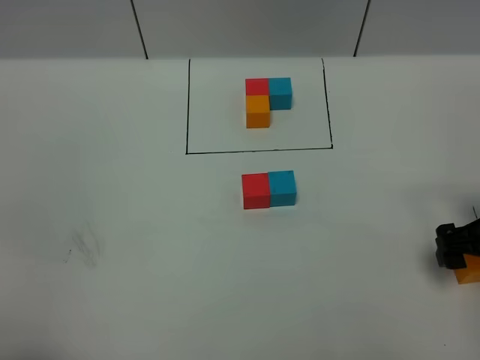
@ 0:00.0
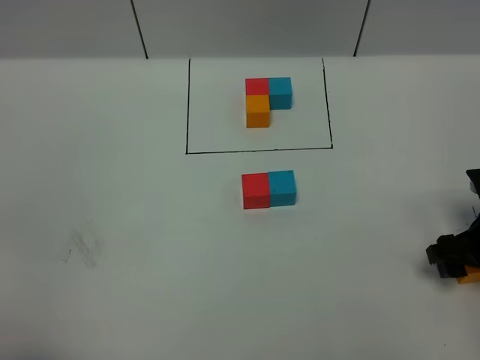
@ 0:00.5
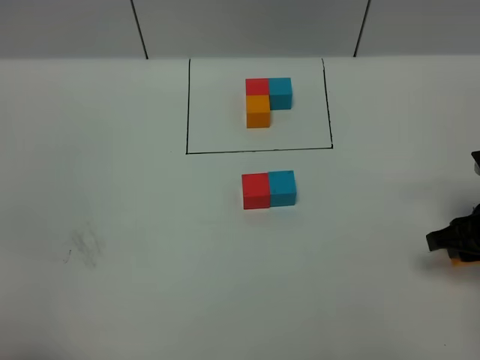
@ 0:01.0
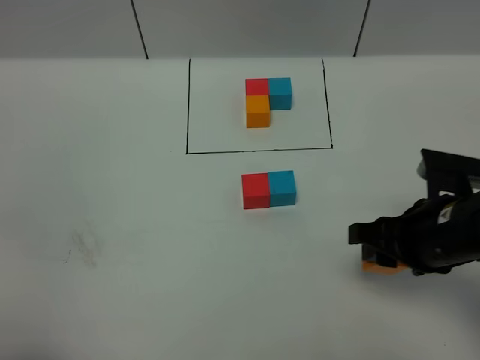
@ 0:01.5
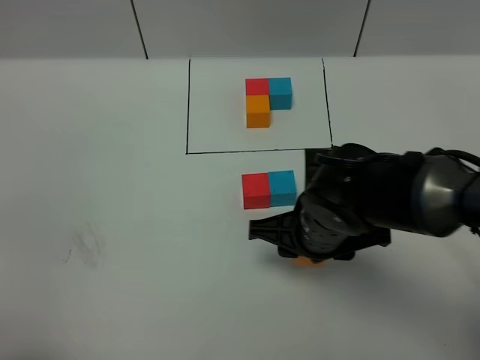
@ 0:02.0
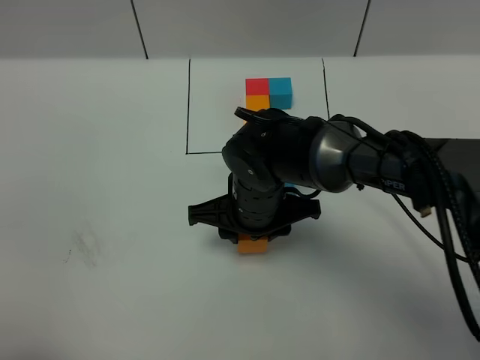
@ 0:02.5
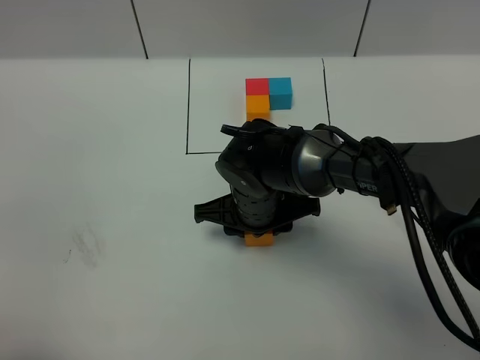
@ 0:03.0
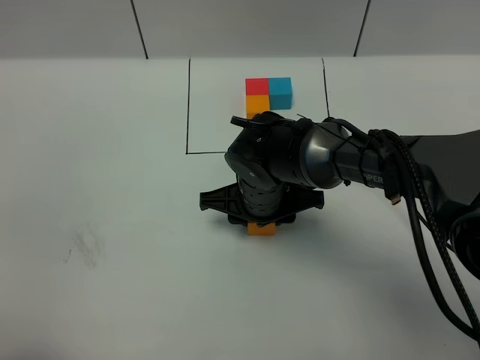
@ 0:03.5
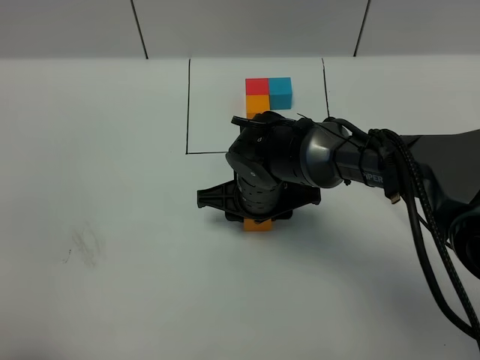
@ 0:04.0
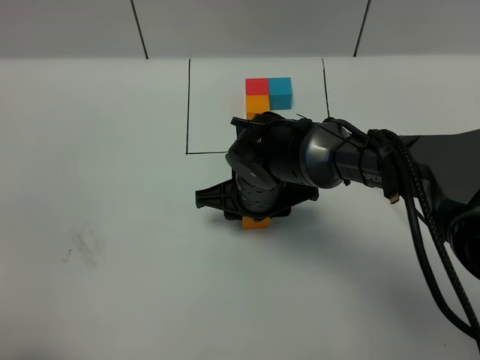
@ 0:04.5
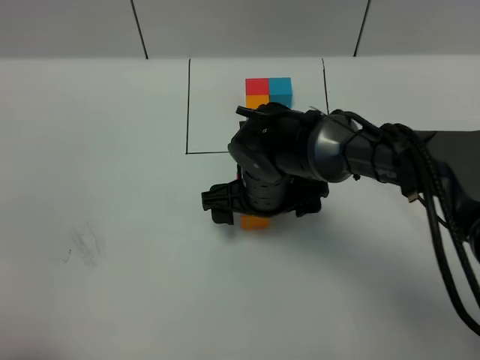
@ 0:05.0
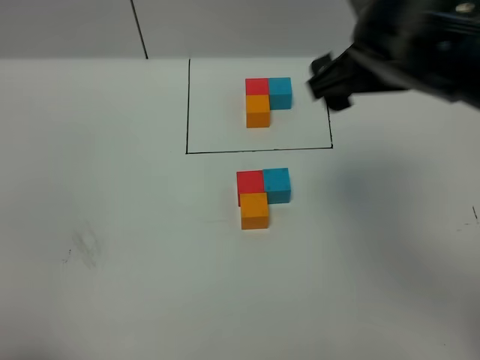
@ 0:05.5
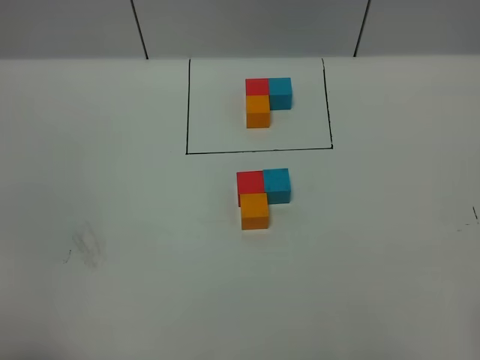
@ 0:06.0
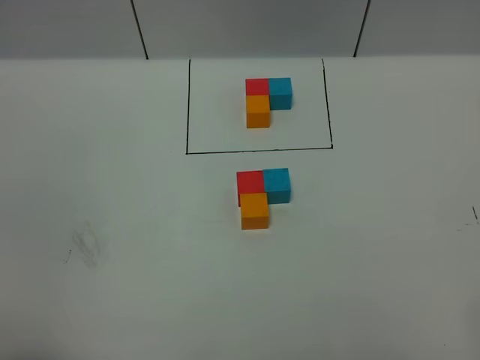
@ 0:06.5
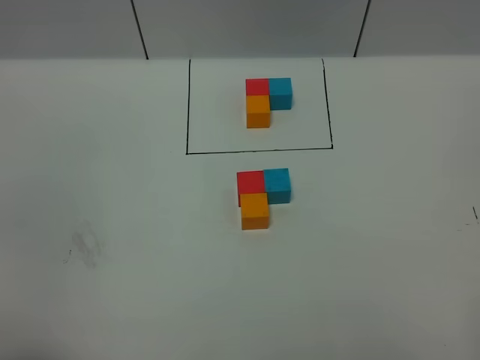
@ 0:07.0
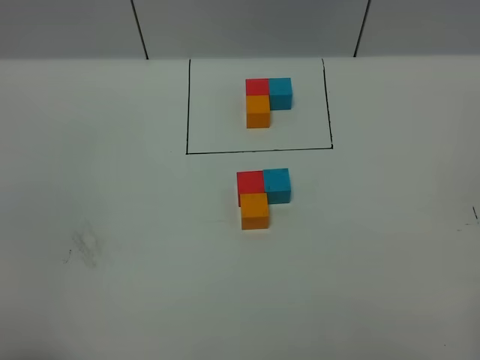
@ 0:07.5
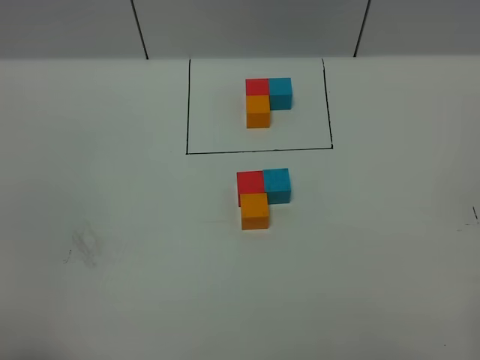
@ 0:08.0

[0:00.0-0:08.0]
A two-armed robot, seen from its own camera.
Task of the whole recording: According to the building block template in front, assemble the scattered blocks together.
Step, 0:00.0 to 0:05.0: Put the orange cube in the front of the red cube.
0:00.0 to 0:02.0: The right gripper is displaced to the left by approximately 25 cm, and closes up.
0:02.0 to 0:04.0: The right gripper moves forward and to the left, some 10 cm.
0:04.0 to 0:06.0: The right gripper is displaced upward, to the right and backward by roughly 60 cm, and opens.
